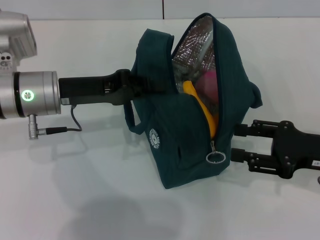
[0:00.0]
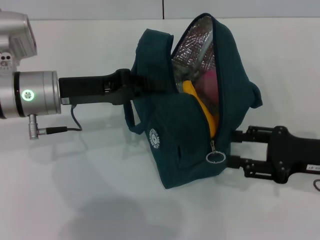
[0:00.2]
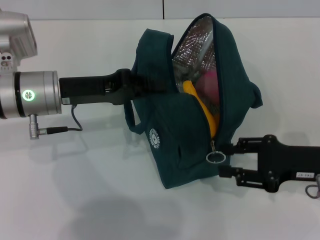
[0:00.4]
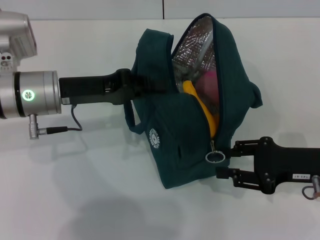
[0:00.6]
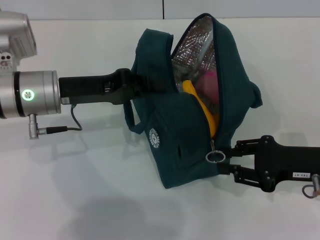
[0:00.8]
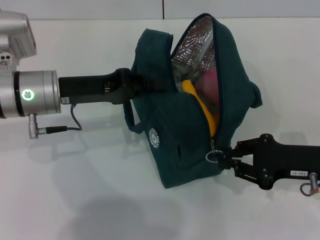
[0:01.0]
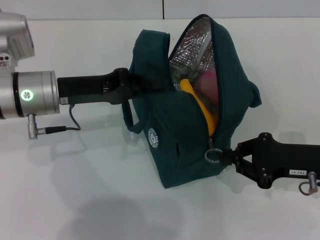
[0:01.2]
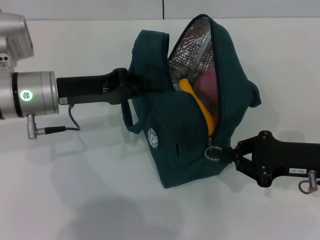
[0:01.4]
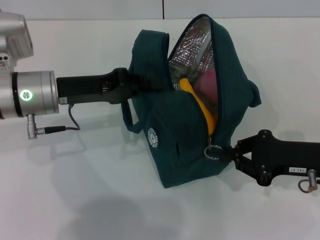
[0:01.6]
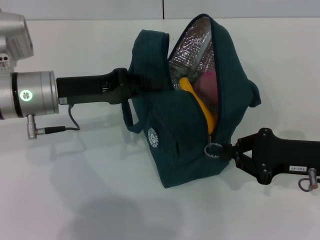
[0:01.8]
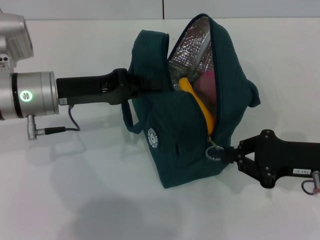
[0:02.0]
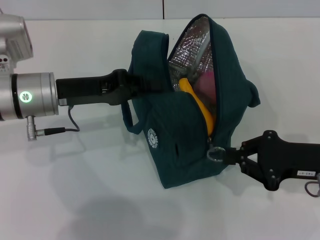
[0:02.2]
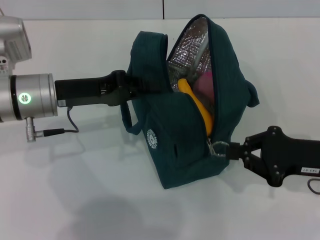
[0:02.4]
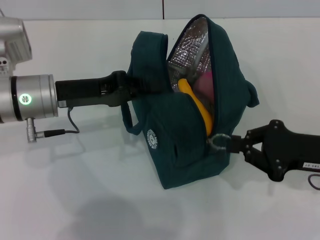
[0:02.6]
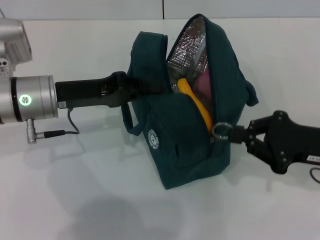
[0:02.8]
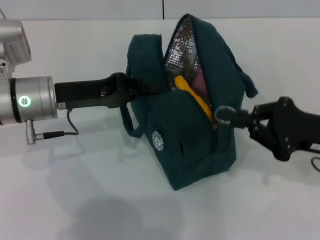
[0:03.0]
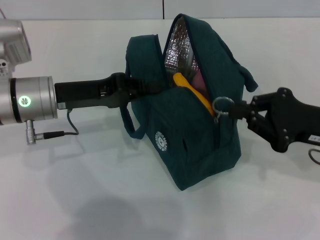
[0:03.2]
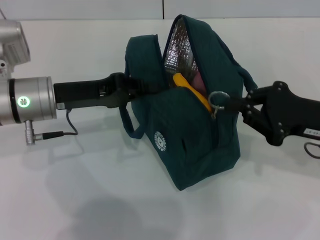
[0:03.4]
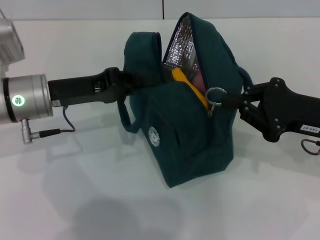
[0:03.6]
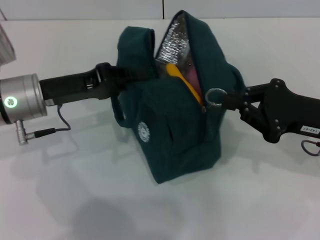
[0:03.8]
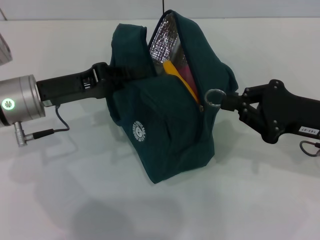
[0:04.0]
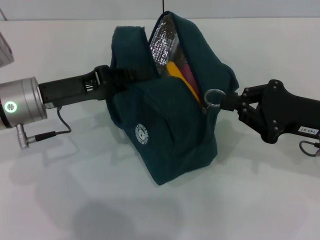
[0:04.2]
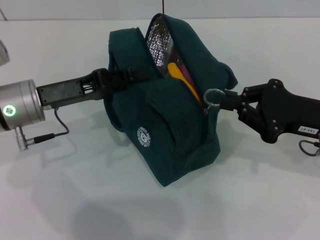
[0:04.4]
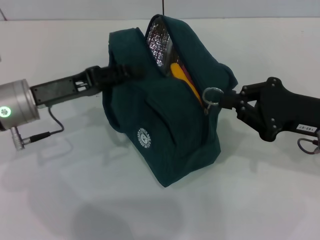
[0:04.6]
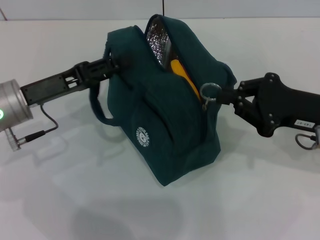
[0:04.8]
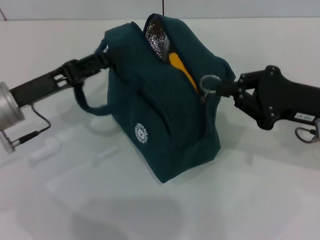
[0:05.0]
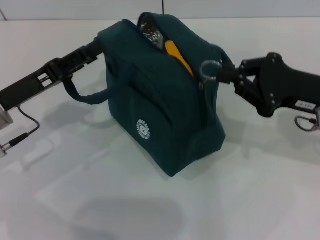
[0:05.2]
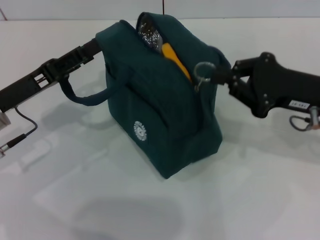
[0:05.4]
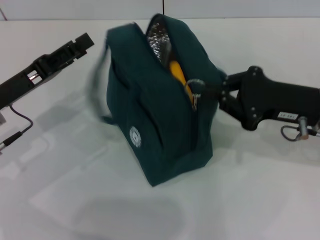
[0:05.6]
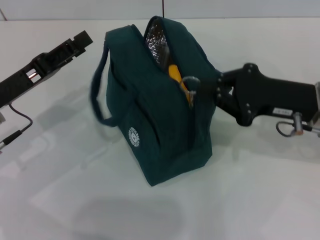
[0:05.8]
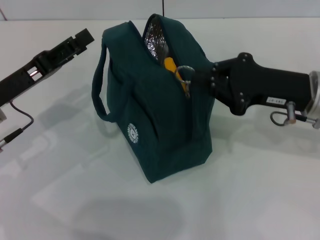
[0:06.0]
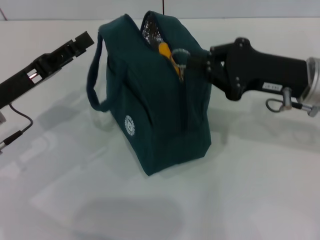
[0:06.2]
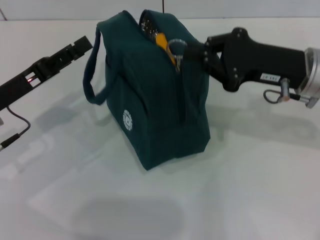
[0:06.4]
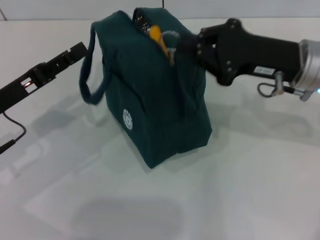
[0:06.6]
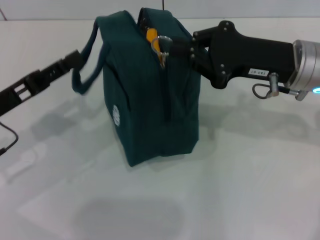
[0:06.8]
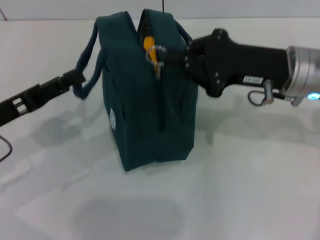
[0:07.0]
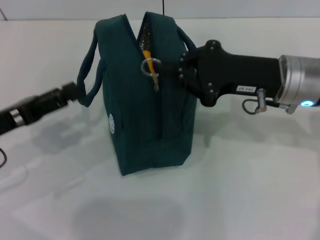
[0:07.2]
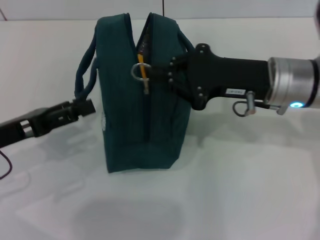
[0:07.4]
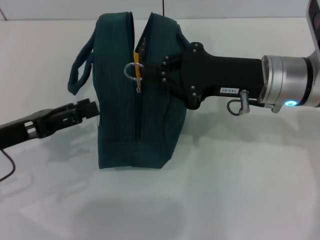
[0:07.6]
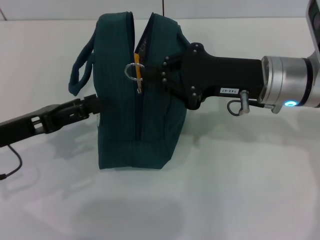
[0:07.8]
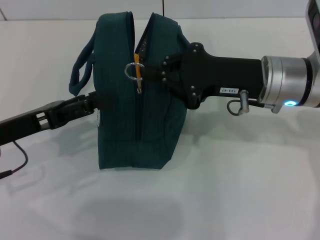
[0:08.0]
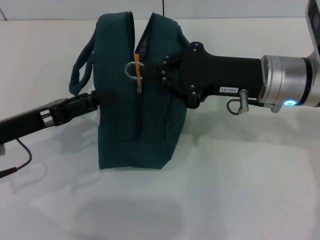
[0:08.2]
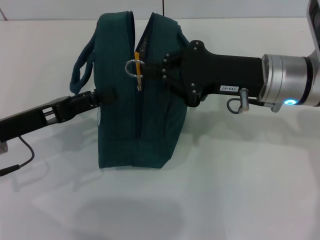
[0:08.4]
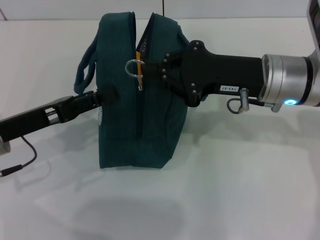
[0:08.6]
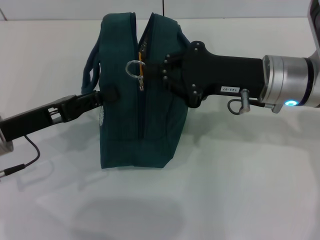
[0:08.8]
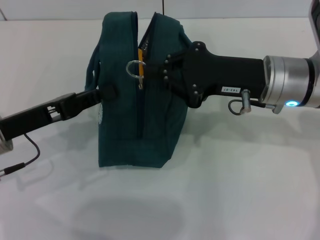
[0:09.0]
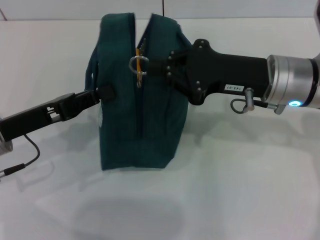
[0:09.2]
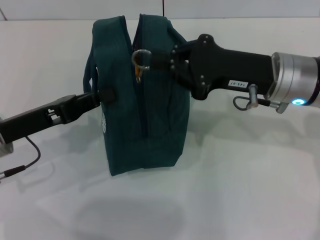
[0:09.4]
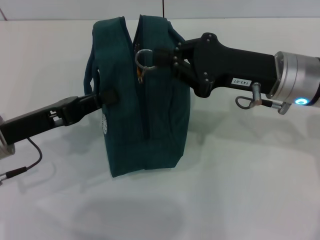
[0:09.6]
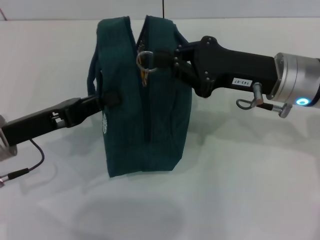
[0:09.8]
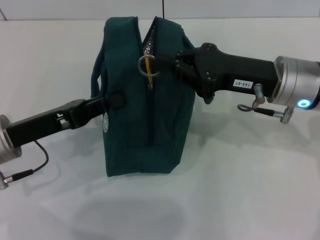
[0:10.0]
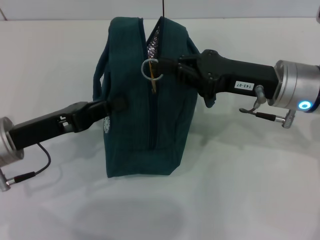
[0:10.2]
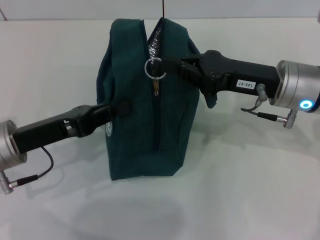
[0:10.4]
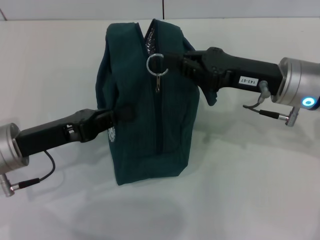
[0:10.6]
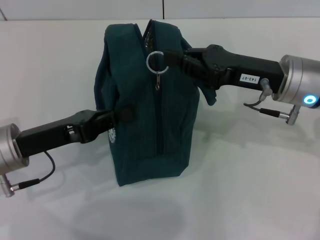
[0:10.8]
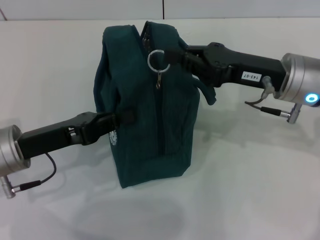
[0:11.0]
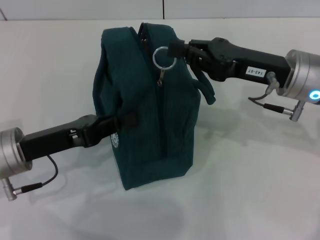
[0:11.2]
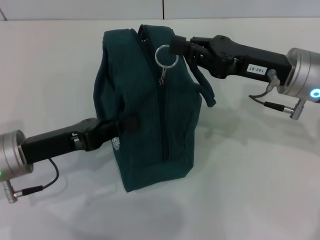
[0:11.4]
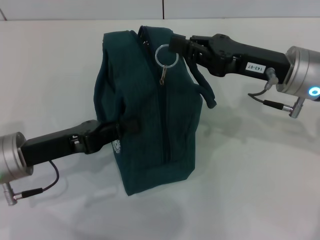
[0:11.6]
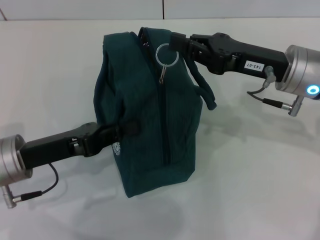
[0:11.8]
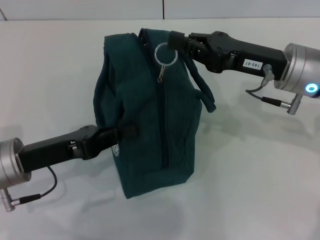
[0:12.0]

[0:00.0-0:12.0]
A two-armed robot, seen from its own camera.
Step, 0:00.0 to 0:05.0: Hold the lunch bag with your left hand.
0:00.0 to 0:01.6: The right gripper closes its fingers.
0:01.6 to 0:03.0: The grippers make only small movements.
0:04.4 to 0:06.0: The left gripper ends up about 5 cm from where it was, and opens its fingers. Meanwhile the right gripper changes place by about 5 cm.
0:06.0 to 0:07.6: The right gripper travels to the left by approximately 5 cm.
0:07.6 to 0:09.0: The left gripper closes up.
0:09.0 to 0:10.4: The left gripper closes.

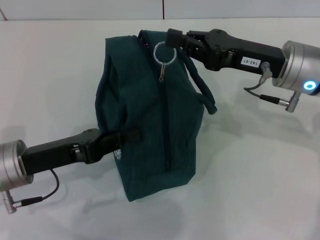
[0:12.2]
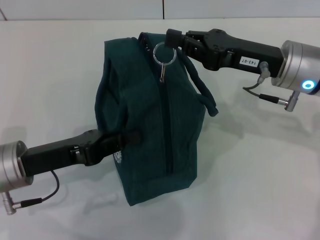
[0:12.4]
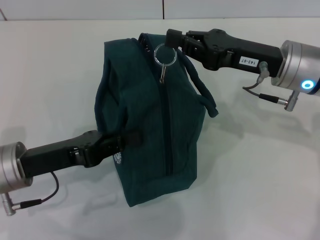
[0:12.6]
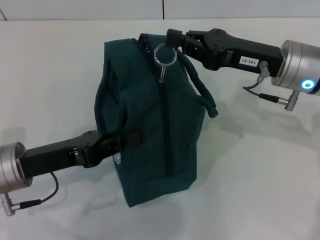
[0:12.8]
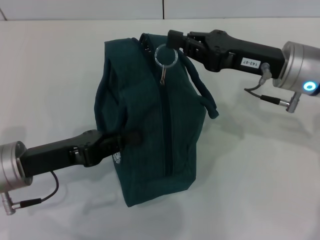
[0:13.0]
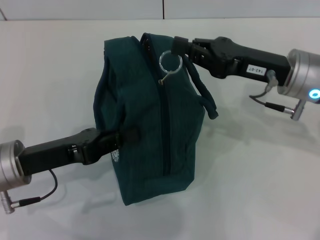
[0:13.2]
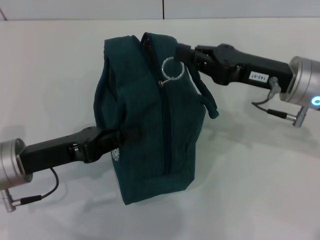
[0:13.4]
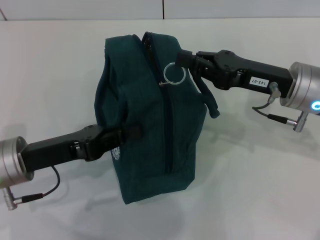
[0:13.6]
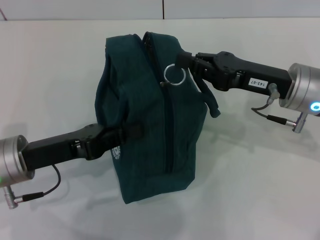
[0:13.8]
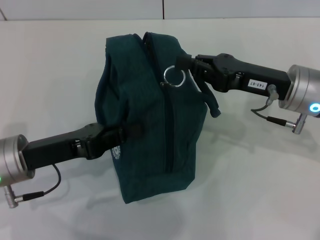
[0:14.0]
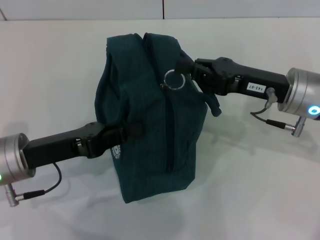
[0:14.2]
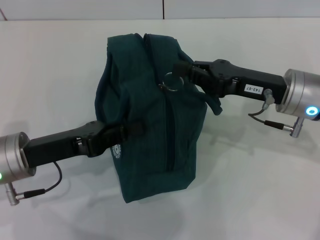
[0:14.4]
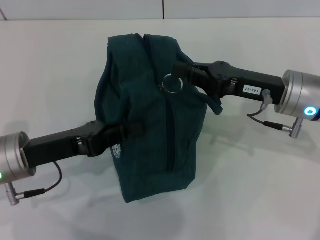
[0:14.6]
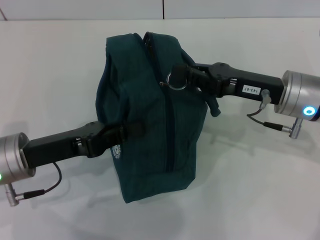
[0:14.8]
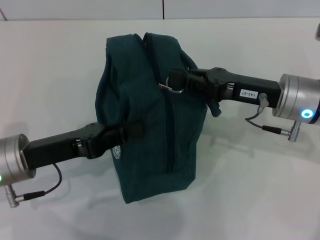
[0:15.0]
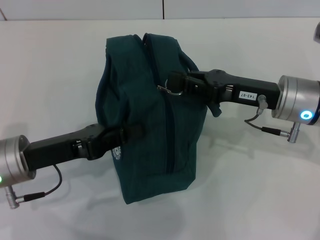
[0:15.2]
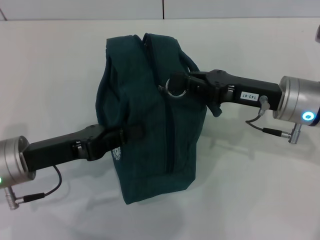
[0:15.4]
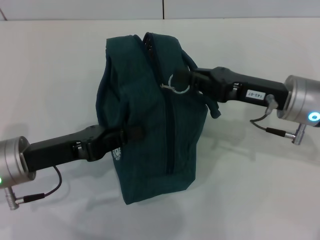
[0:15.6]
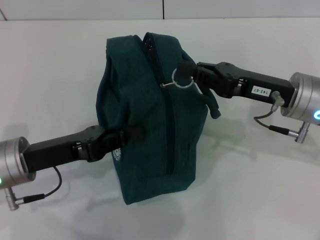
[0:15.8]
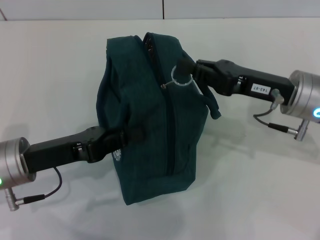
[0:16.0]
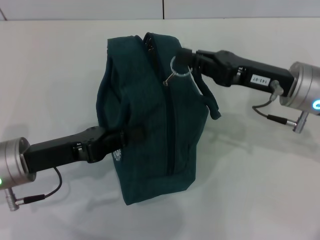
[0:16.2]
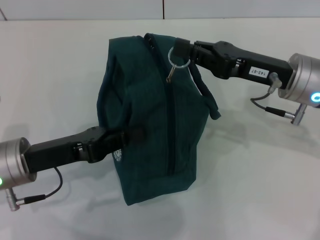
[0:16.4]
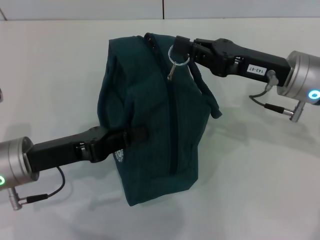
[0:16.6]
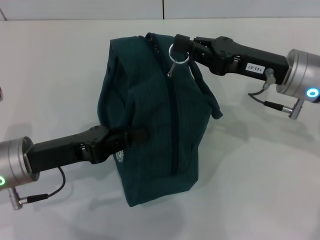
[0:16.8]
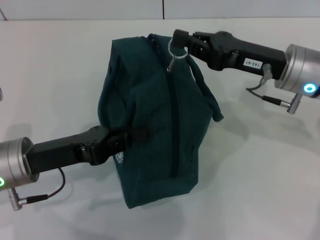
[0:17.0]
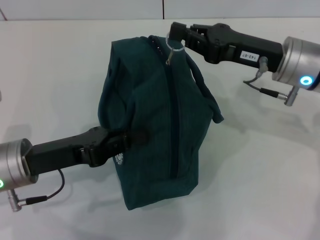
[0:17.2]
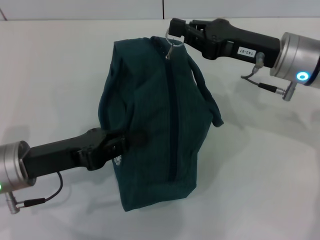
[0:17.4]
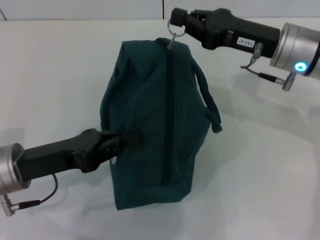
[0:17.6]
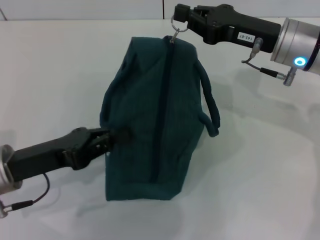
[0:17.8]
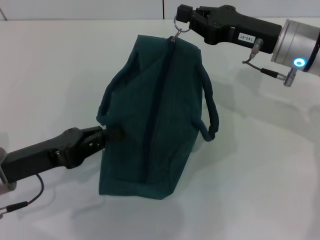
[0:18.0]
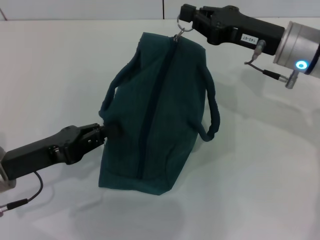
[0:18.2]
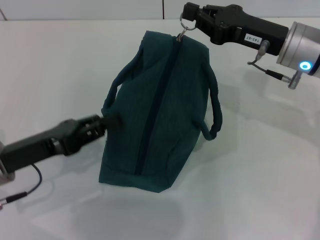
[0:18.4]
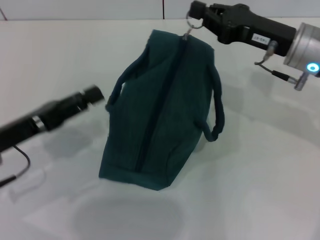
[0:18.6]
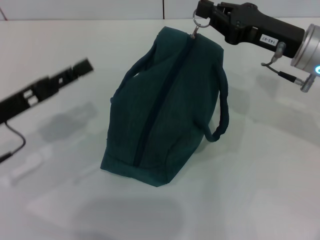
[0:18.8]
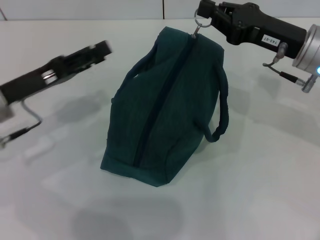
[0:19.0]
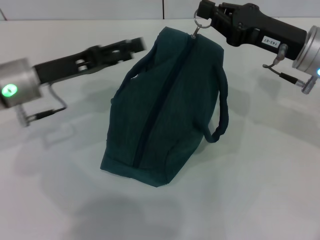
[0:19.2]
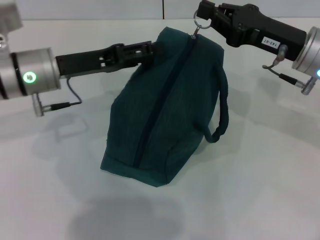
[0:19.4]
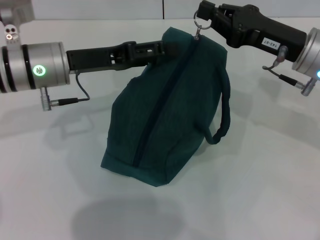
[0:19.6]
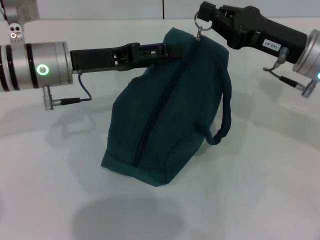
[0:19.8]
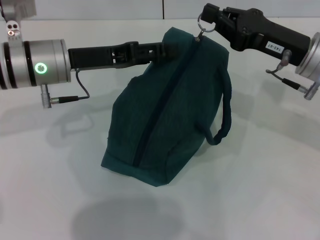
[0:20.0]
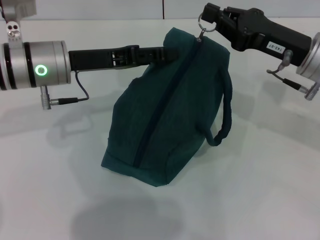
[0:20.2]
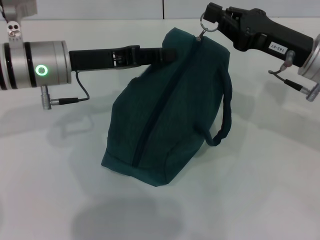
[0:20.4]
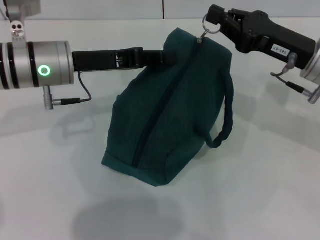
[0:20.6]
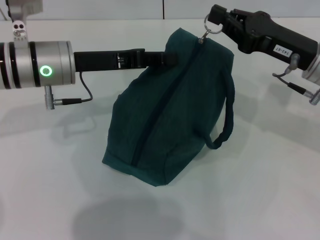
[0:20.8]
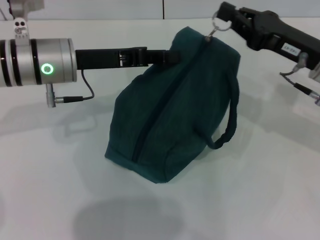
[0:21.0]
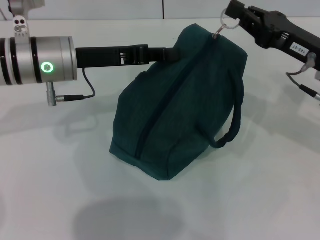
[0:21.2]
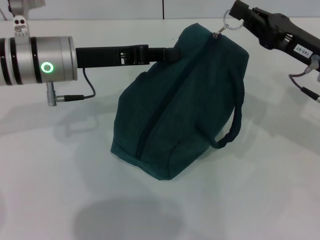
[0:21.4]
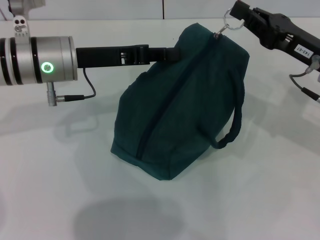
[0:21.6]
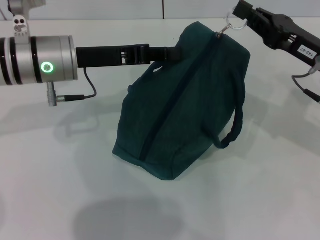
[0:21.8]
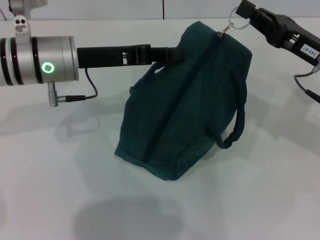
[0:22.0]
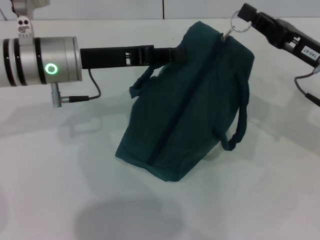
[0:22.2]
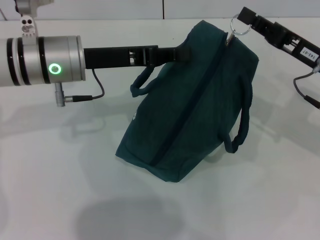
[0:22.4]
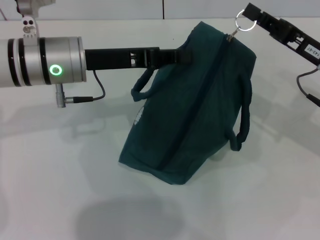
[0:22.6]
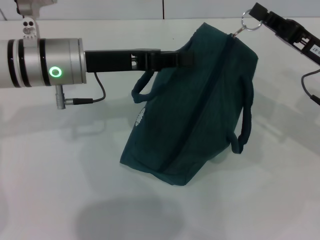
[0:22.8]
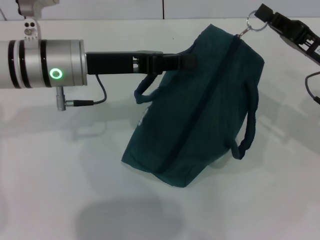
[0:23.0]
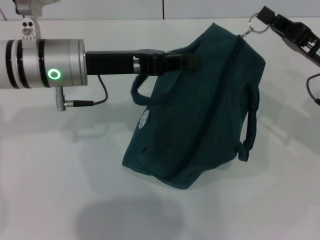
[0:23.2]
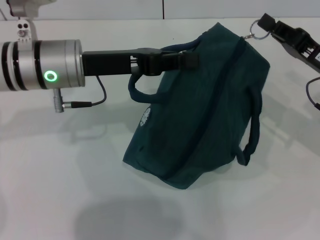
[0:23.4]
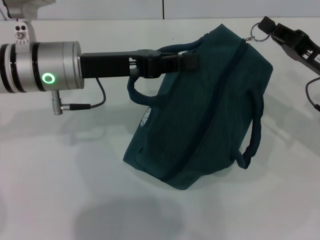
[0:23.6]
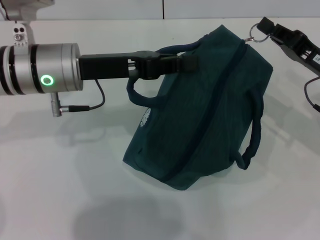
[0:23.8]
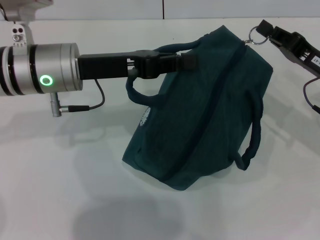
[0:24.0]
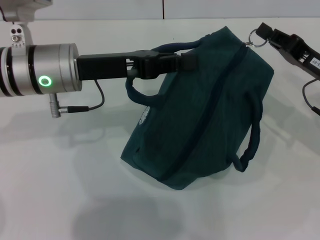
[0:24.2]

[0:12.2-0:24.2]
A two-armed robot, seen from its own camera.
0:12.2 to 0:16.6: The grippers move only a little.
0:18.2 to 0:19.8: The left gripper shifts about 15 cm forward, to the right and upward, and opens up.
0:19.8 to 0:21.2: The left gripper closes up.
0:21.2 to 0:22.6: The grippers move only a little.
0:22.6 to 0:24.2: There are only small adjustments of the grippers.
